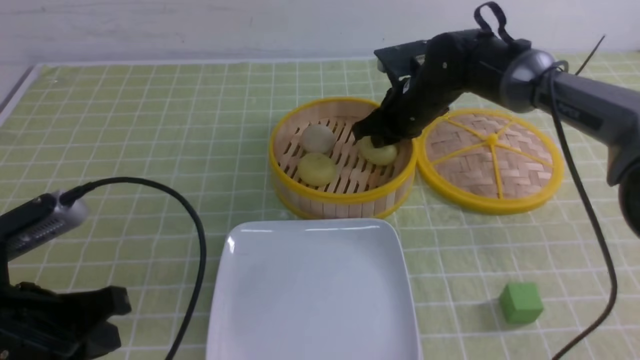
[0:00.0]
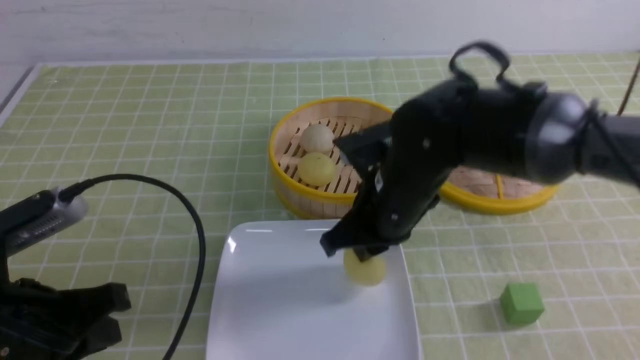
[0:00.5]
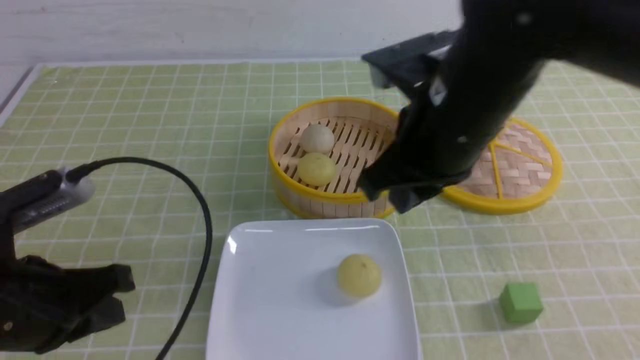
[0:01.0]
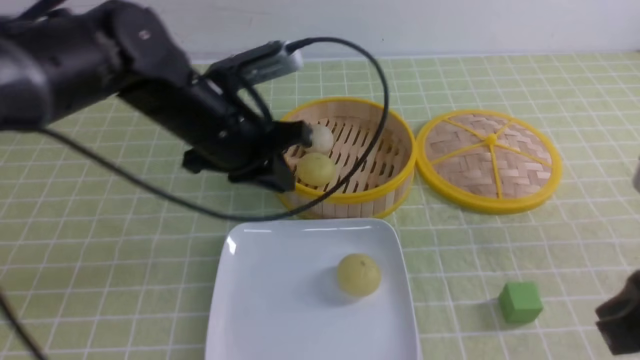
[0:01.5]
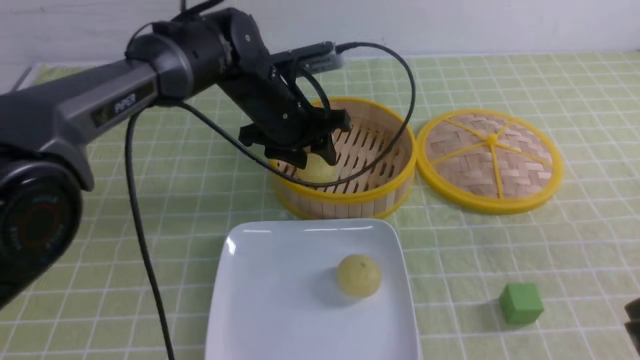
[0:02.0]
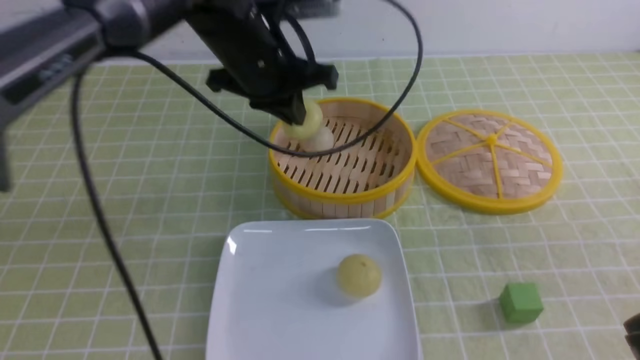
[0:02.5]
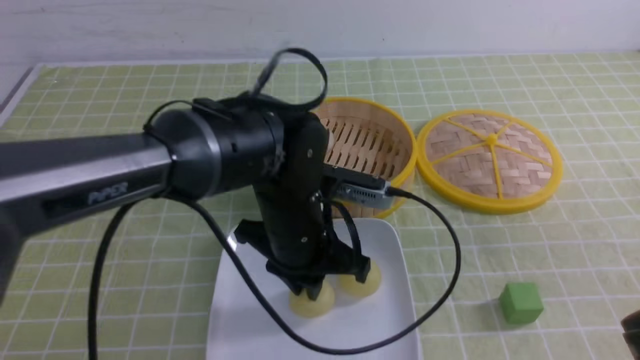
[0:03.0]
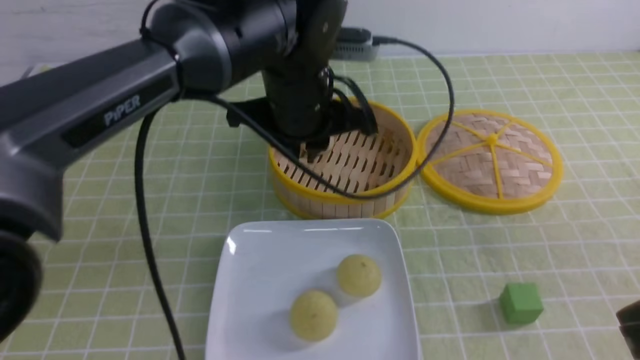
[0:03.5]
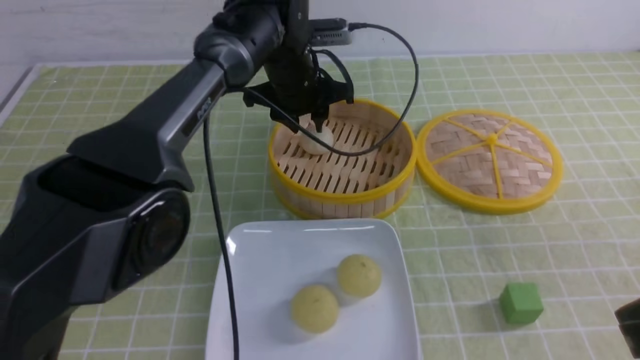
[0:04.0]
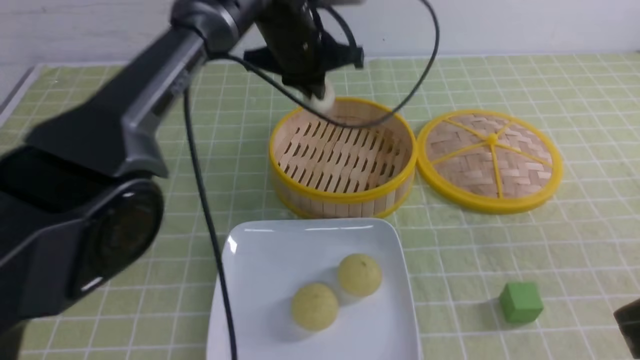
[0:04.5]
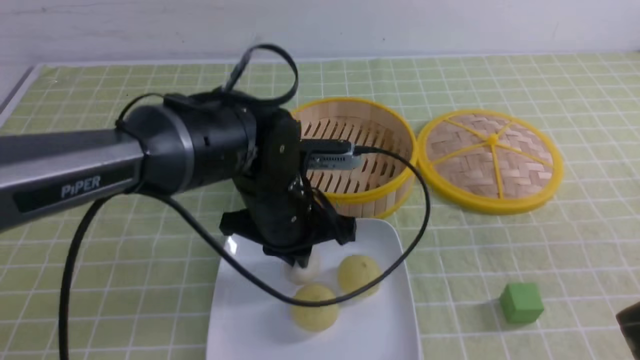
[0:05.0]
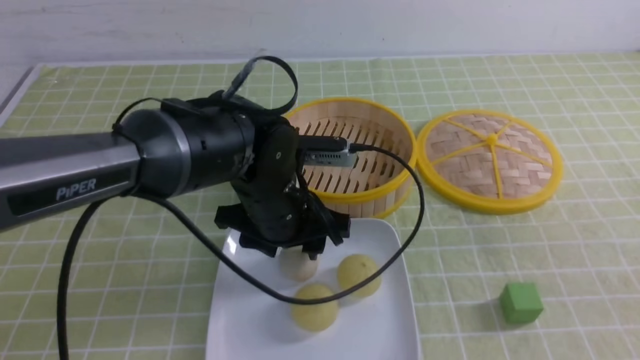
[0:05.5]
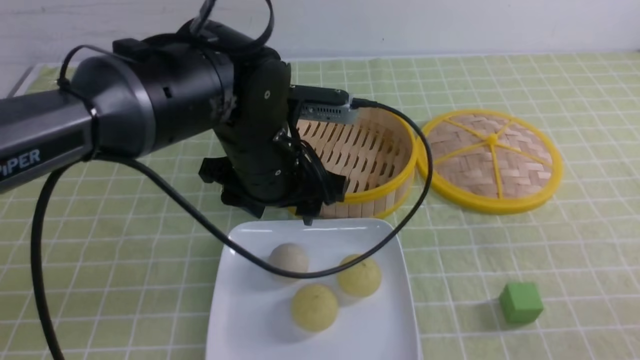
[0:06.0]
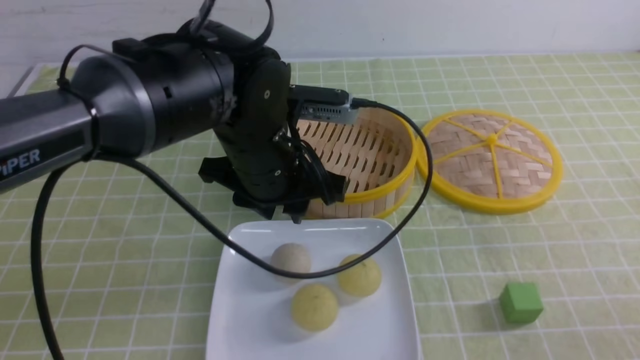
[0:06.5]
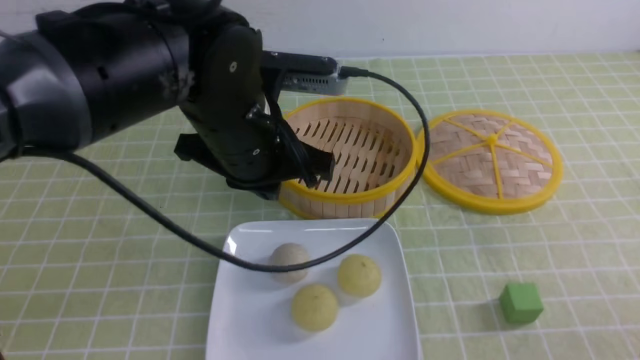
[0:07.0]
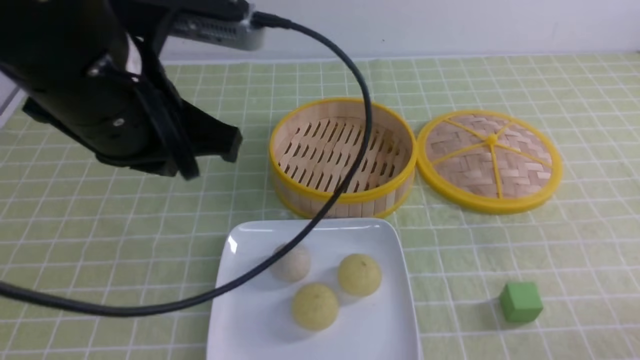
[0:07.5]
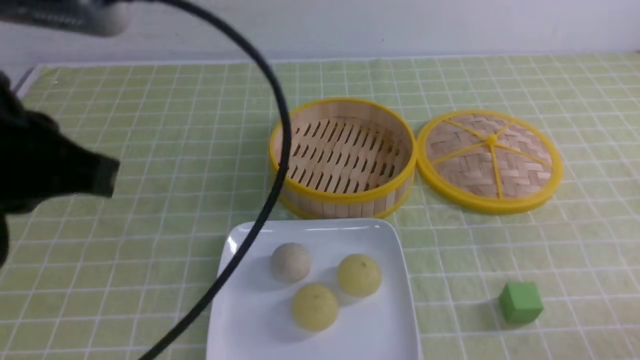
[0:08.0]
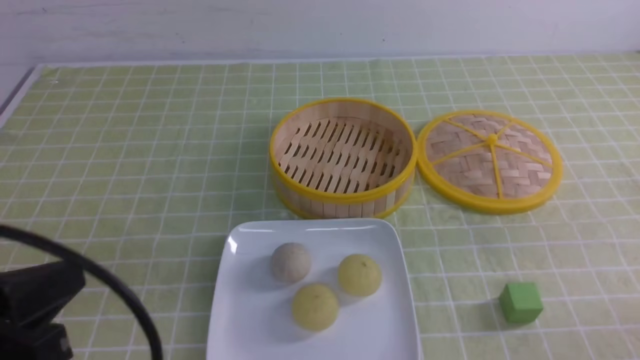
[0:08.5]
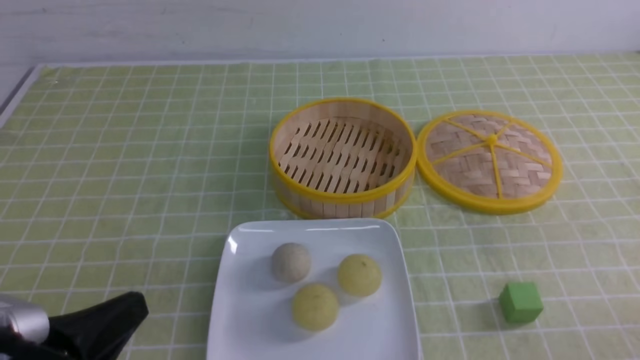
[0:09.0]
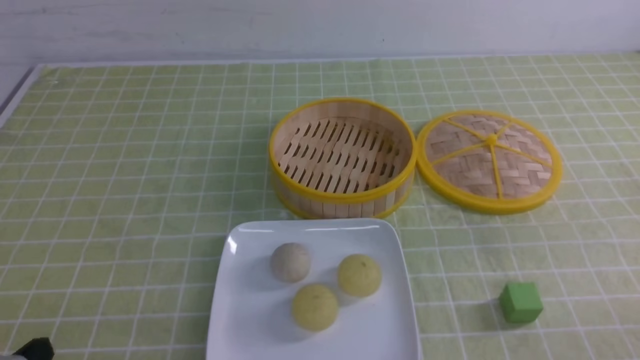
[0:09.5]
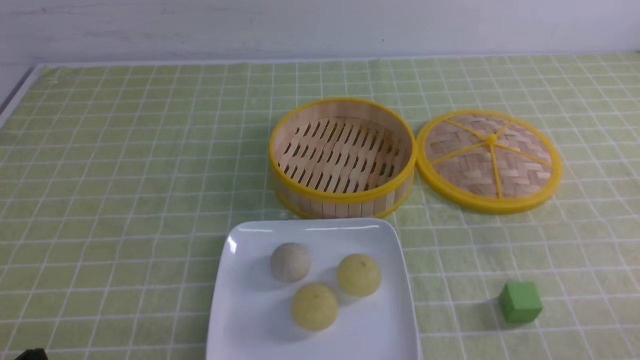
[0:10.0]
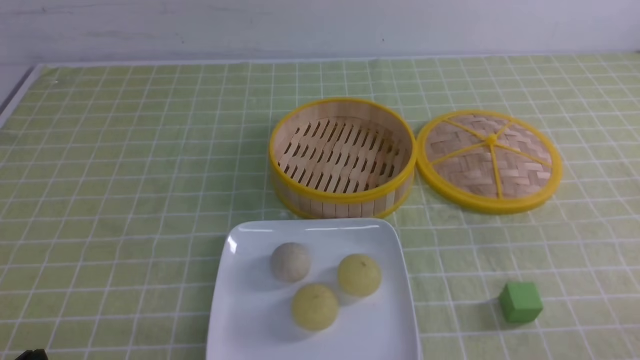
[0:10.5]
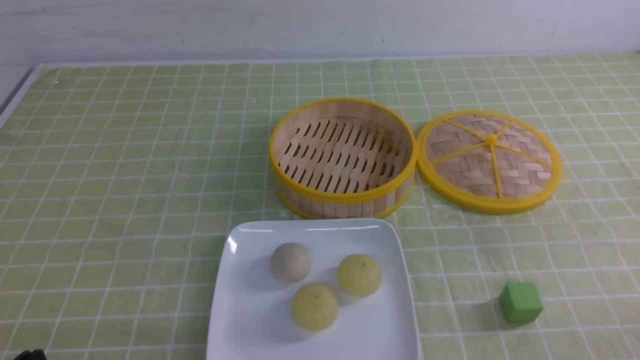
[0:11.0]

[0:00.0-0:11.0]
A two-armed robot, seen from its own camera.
Step, 0:01.0 to 0:02.0: use the left arm to grab the steamed stuffed bun that is closest to it.
Step, 0:02.5 to 0:03.0: use the left arm to put the steamed stuffed bun into the plate.
Step, 0:03.5 to 0:04.0: use the left arm to grab the steamed stuffed bun that is closest to it.
Step, 0:04.5 to 0:05.0: use the left arm to put the steamed stuffed bun into the plate.
0:00.0 to 0:02.0: The left gripper goes some 35 cm forward and to the right, and opens its fingers. The right gripper heads backward, covering approximately 35 cm, and closes its fingers.
0:02.0 to 0:03.5: The left gripper goes about 5 cm upward.
0:03.5 to 0:05.5: The left gripper travels backward and downward by roughly 10 cm, and opens up; the right gripper heads backward, covering approximately 5 cm.
0:05.5 to 0:07.5: The left gripper shifts roughly 20 cm upward, to the left and backward, and closes its fingers, while the right gripper travels downward by roughly 15 cm.
0:07.5 to 0:09.0: The left gripper is displaced downward, backward and to the left by approximately 25 cm.
0:09.0 to 0:11.0: The left gripper goes some 5 cm downward.
